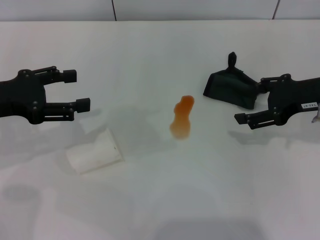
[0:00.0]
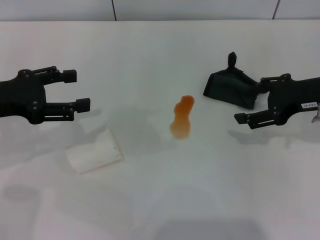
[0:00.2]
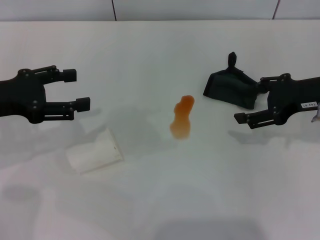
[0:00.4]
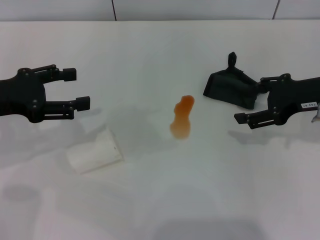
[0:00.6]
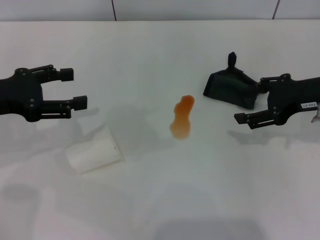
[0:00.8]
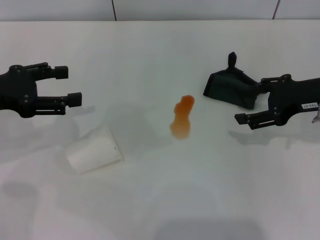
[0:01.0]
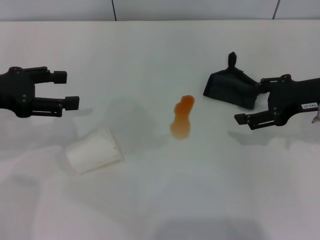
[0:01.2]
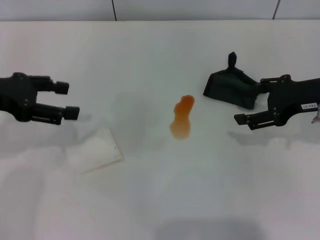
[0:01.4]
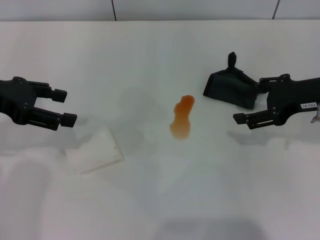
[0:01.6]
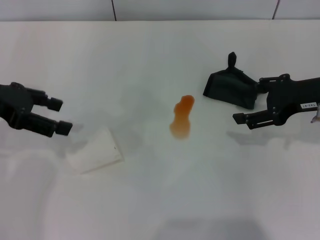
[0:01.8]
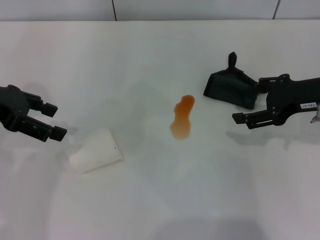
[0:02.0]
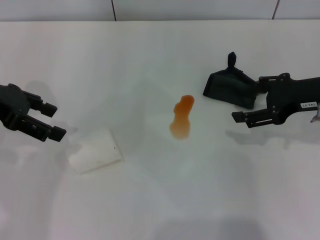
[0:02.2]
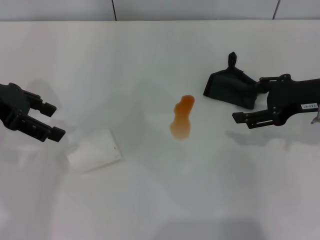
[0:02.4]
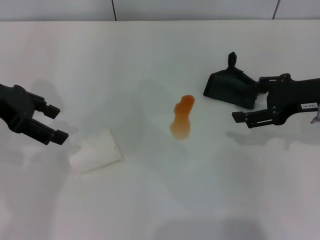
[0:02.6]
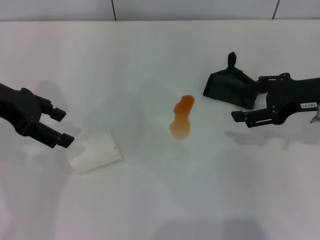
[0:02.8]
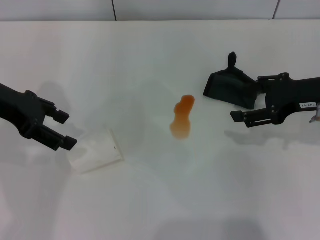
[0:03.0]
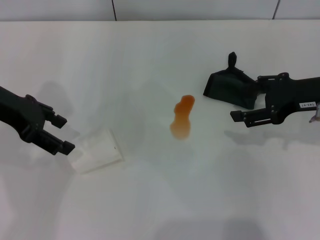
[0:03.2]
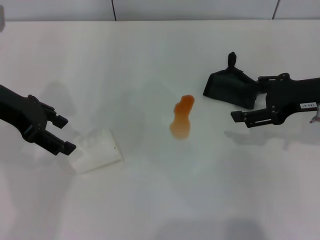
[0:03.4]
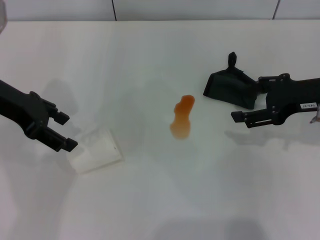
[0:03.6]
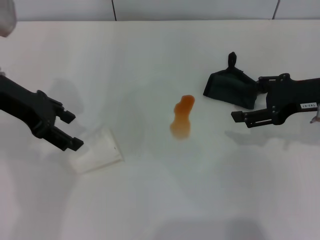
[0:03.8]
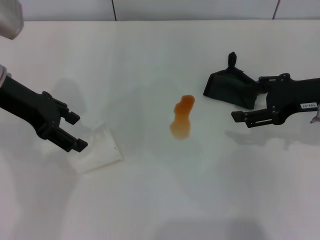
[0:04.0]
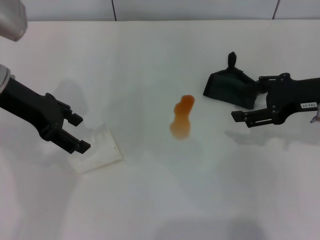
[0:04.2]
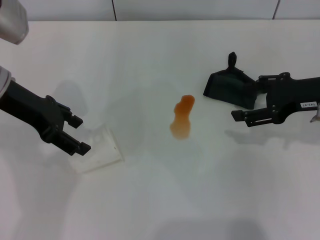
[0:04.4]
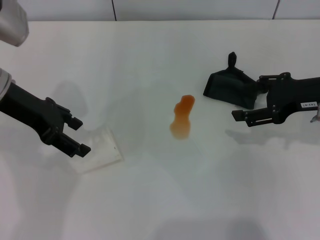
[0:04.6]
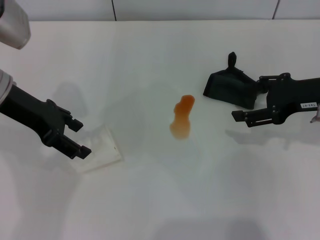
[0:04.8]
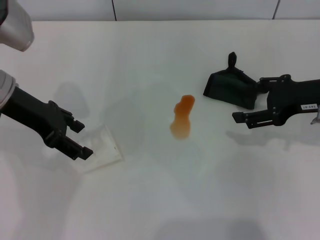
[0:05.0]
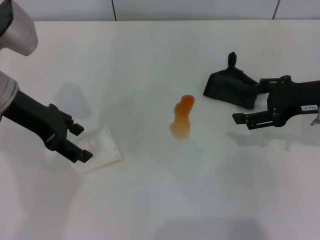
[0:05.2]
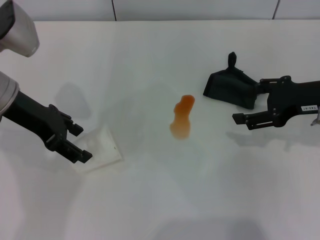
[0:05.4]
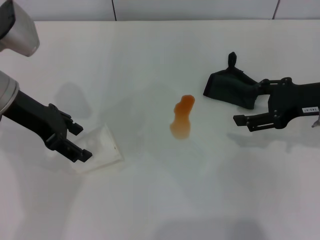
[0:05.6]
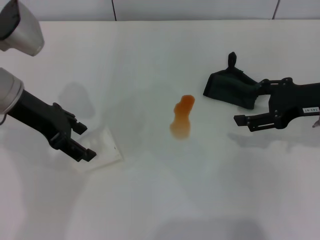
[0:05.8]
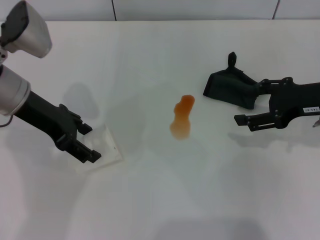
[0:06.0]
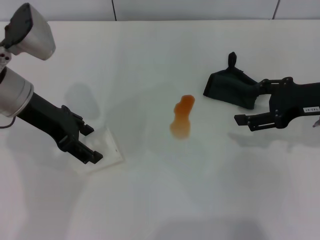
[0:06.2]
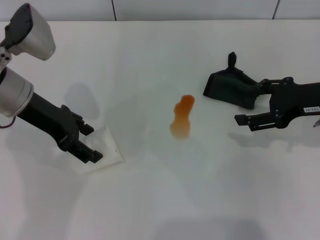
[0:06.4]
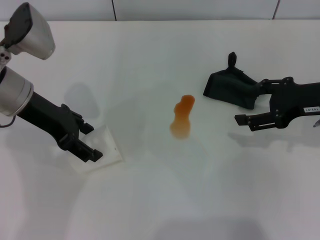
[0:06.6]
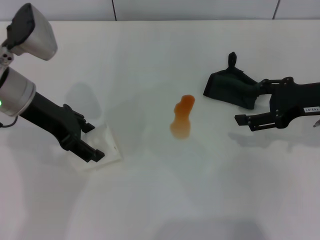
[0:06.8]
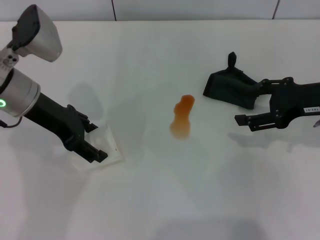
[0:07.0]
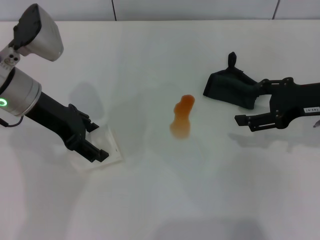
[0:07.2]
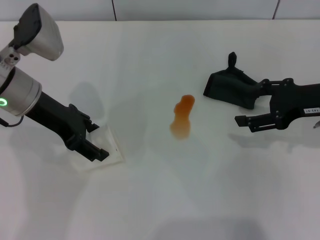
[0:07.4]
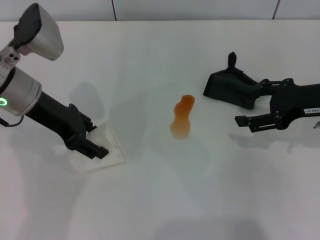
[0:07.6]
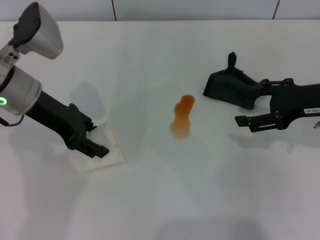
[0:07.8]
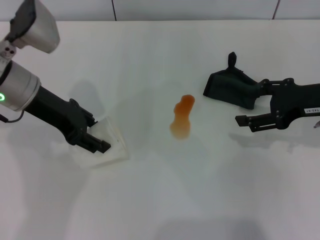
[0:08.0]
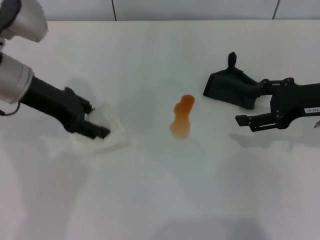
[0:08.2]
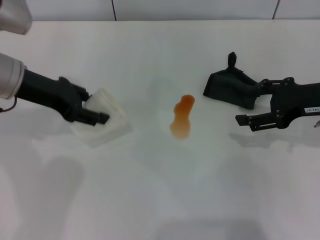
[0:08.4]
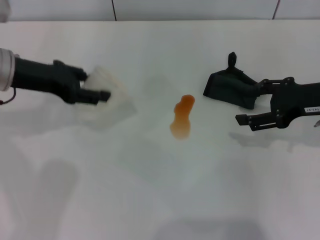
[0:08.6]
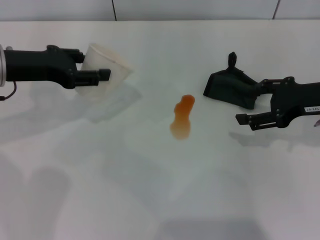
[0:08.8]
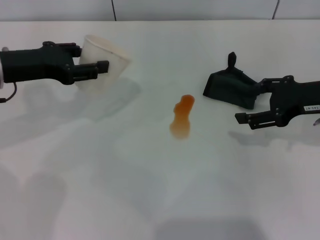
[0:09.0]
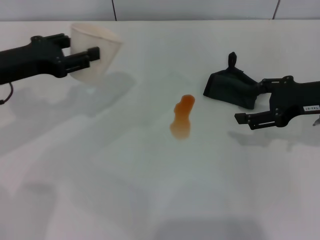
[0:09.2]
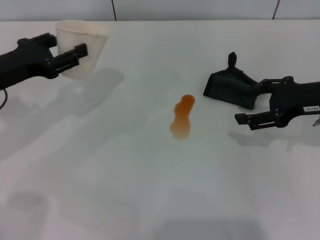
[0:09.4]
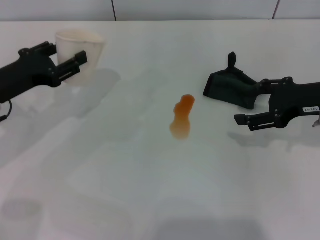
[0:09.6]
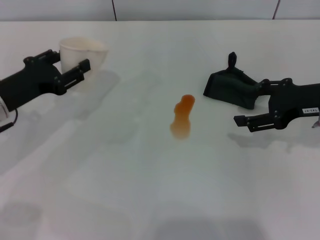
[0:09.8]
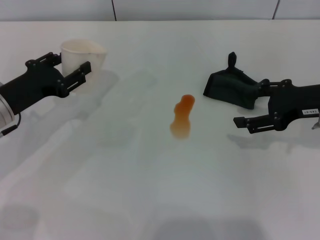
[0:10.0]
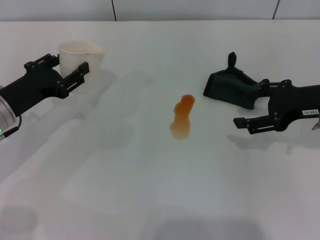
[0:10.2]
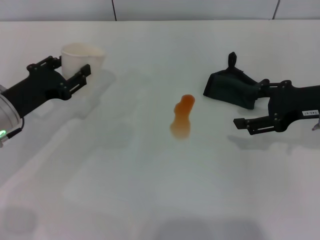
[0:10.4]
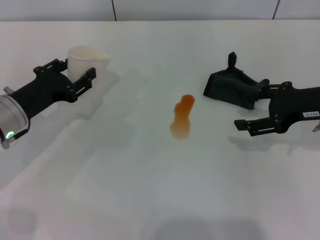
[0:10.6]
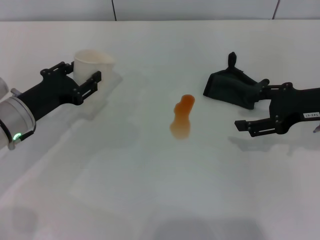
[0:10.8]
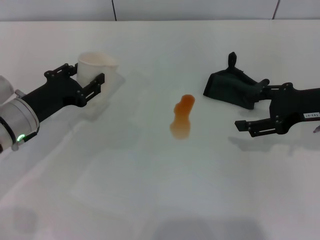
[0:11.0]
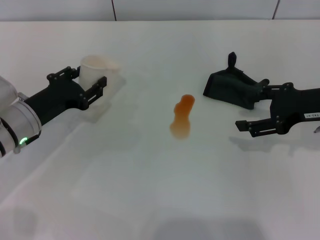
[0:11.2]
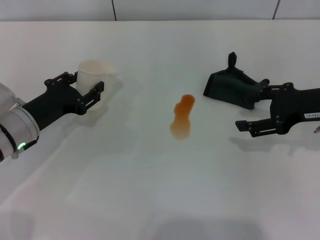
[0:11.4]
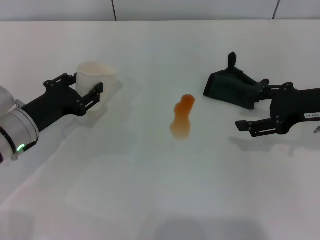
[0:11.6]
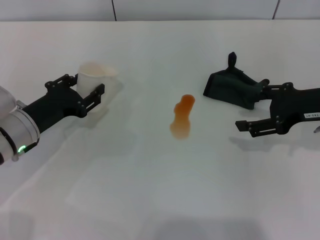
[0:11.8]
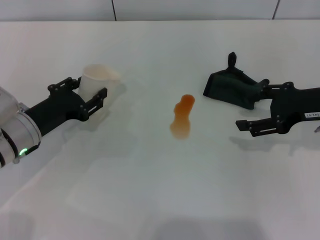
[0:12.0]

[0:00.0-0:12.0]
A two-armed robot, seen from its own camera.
Step, 0:00.0 to 0:07.4: Grasp the paper cup with the left gripper.
0:01.6 to 0:03.0: The grippers move only a little.
0:03.0 to 0:06.0: The grippers stay close to where they were, moving slightly.
0:06.0 to 0:07.6: The left gripper closes.
0:07.6 to 0:09.0: The left gripper ends up some 5 cm from where it was, and closes its fingers.
0:09.0 to 0:10.4: The left gripper travels downward by approximately 10 cm.
0:10.4 to 0:12.0: There are only small adjustments of the grippers.

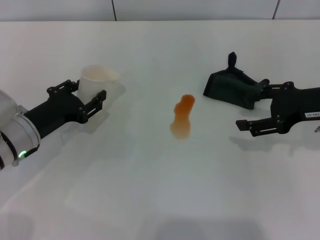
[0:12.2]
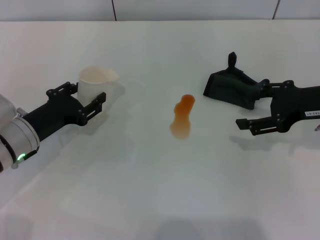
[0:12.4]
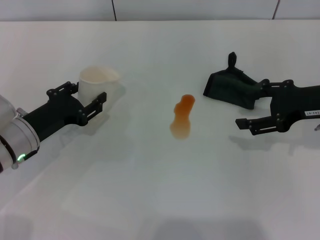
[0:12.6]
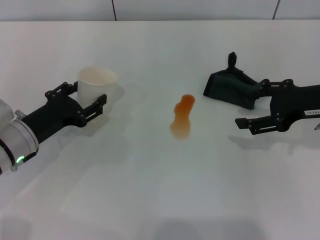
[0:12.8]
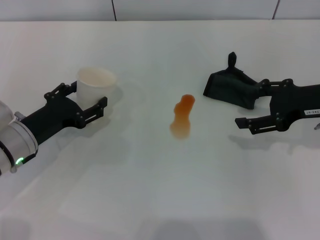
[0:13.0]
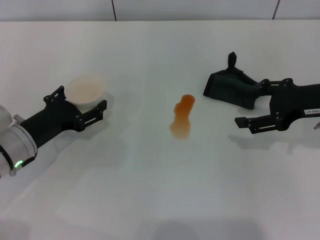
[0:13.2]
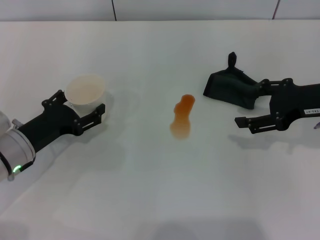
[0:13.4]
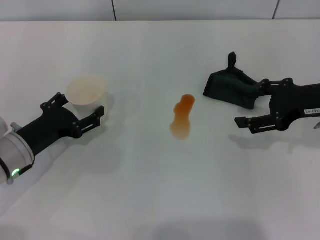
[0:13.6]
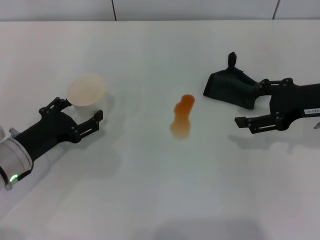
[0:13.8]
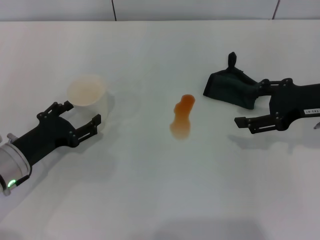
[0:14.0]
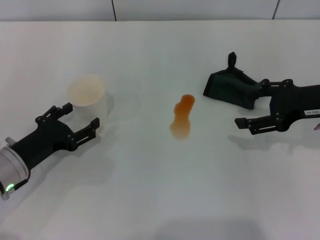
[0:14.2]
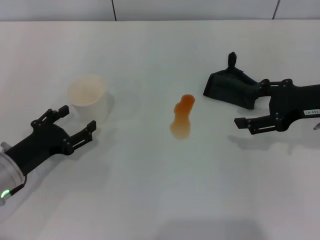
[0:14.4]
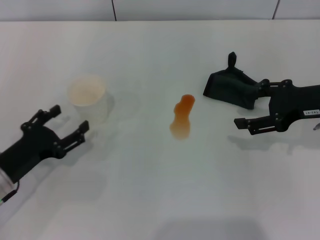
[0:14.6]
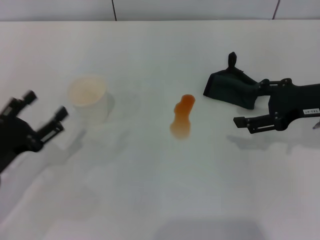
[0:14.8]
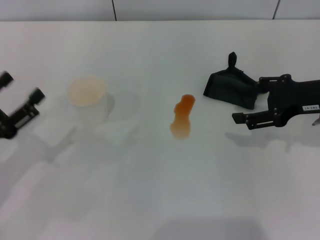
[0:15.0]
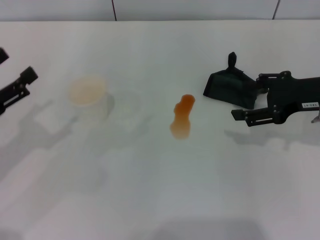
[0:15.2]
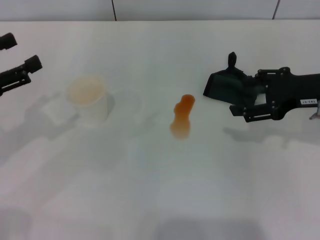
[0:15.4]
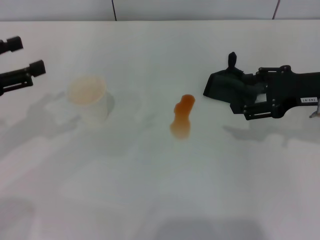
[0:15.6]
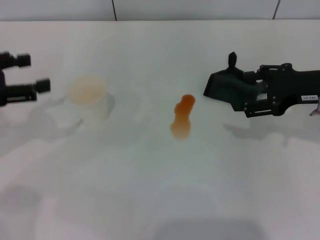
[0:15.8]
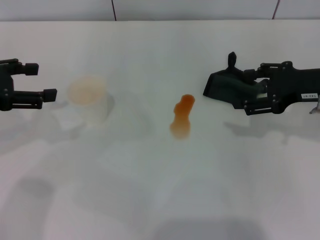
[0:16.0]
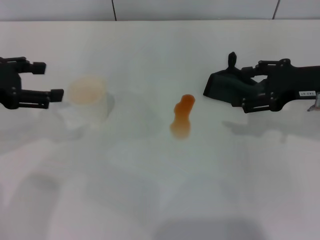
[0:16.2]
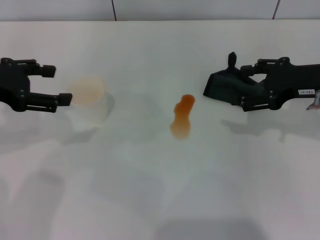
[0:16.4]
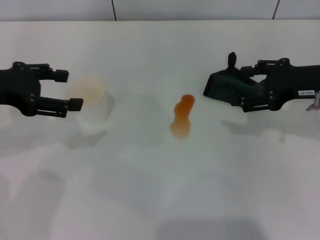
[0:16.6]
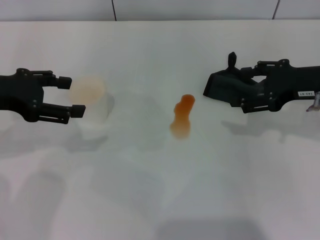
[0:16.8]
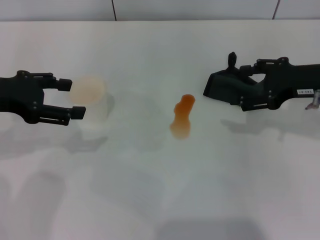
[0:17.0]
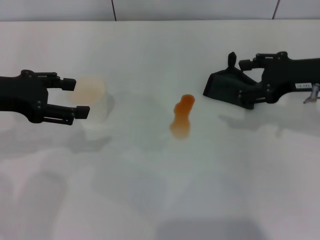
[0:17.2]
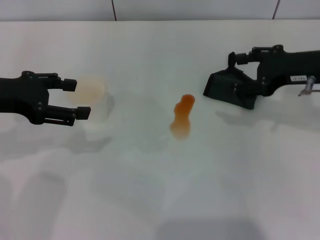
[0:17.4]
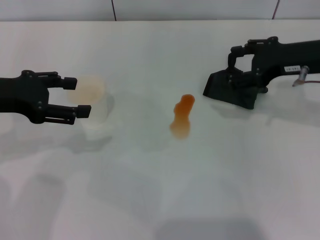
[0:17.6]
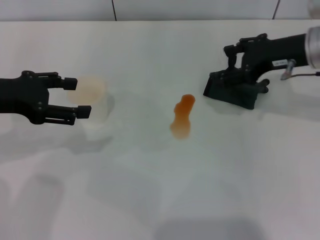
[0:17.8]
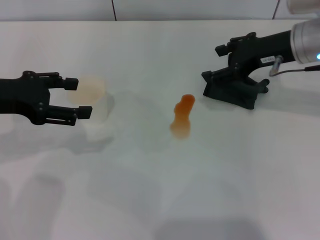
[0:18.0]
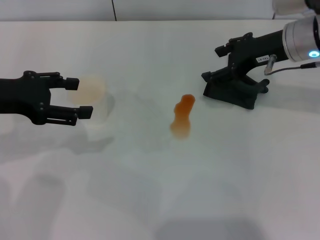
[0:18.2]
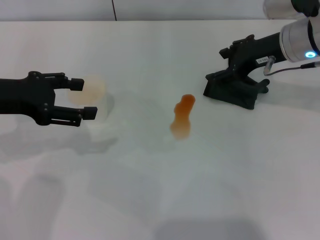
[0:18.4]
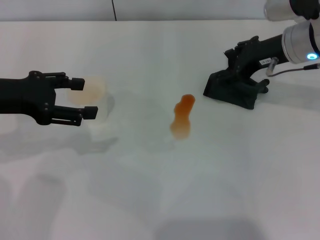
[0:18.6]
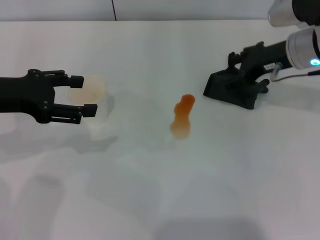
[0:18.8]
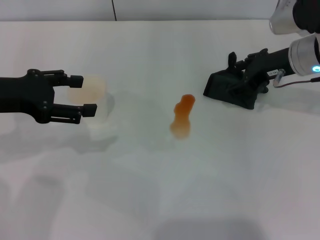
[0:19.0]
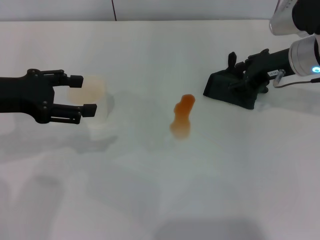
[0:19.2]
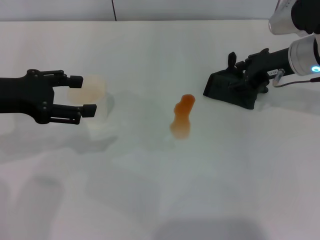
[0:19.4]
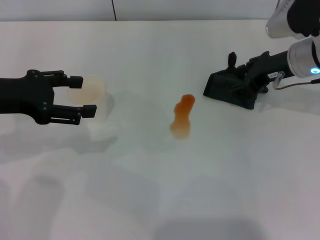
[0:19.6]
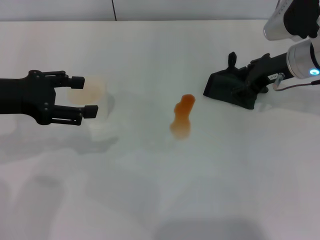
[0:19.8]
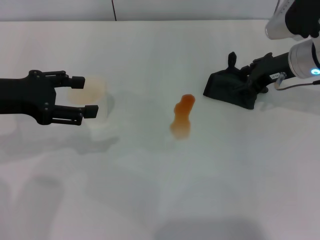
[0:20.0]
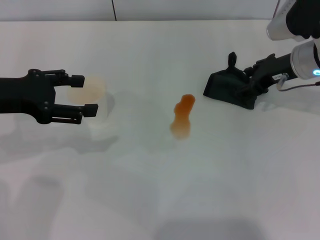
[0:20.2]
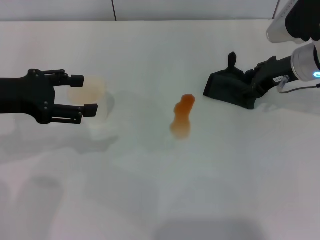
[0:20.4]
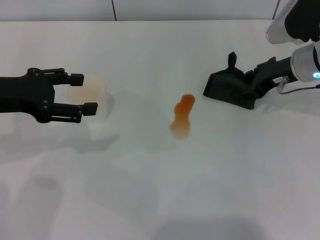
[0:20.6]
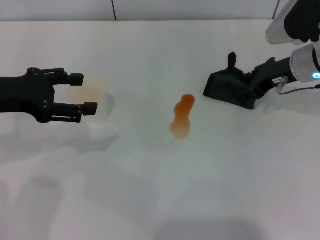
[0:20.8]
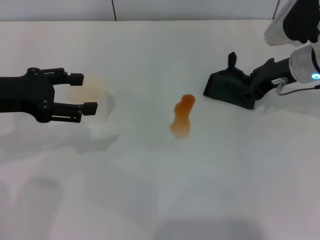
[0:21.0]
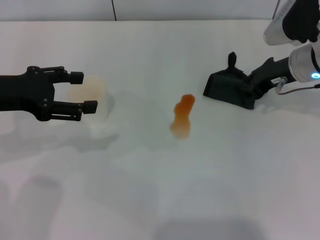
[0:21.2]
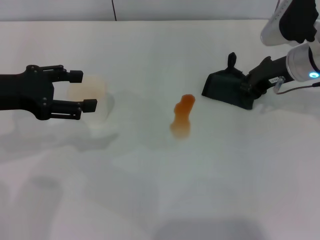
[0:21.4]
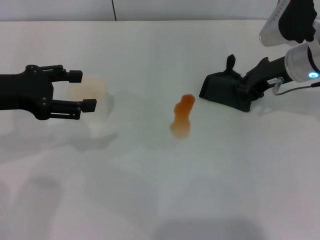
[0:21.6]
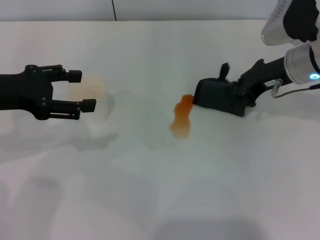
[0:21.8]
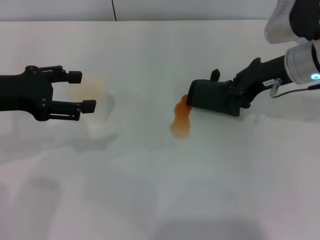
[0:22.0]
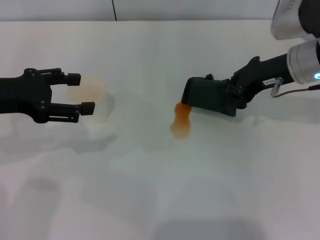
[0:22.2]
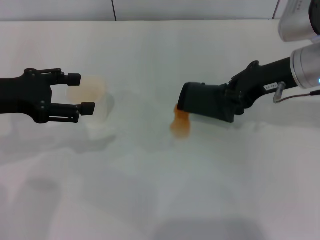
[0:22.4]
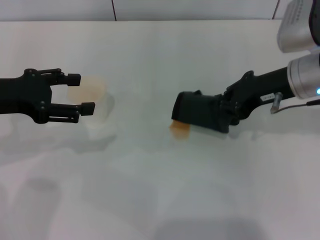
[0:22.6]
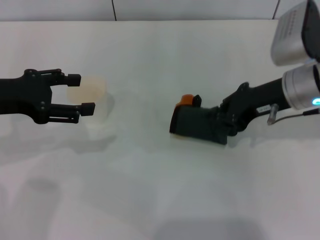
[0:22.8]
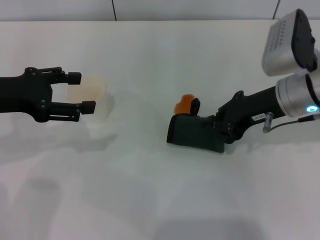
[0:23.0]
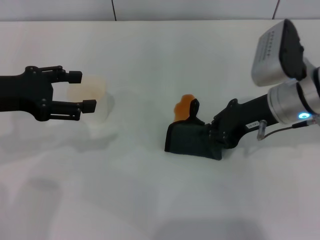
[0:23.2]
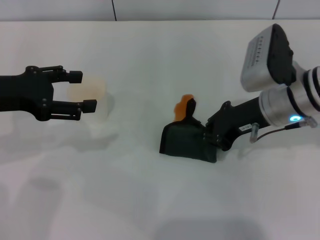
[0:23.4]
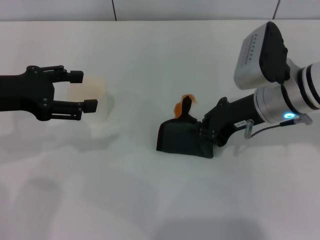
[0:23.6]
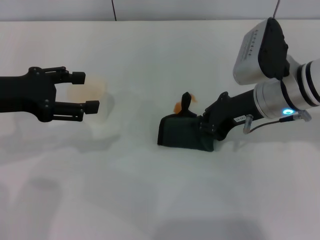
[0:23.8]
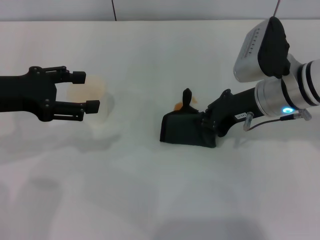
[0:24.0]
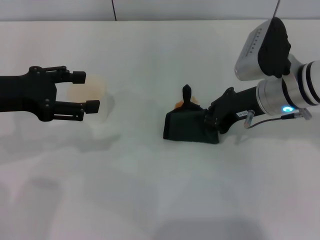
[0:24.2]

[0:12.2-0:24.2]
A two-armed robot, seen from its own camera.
Step, 0:12.2 to 0:14.6: Stand the paper cup upright with the left gripper.
Step, 0:14.8 to 0:21.2: Grasp the rag with the right gripper.
0:12.2 to 0:13.8: The left gripper opens up.
0:13.8 to 0:15.2: The left gripper goes some 10 cm upward and to the left.
0:15.2 to 0:16.6: The left gripper shifts about 10 cm upward and forward.
0:16.6 to 0:18.2: The right gripper travels forward and to the left by approximately 10 cm.
0:18.2 to 0:19.8: The grippers move only a little.
0:19.8 to 0:21.2: The right gripper closes.
0:21.2 to 0:22.6: The right gripper goes roughly 5 cm backward.
0:22.6 to 0:24.2: The right gripper ends up roughly 5 cm from where it was.
